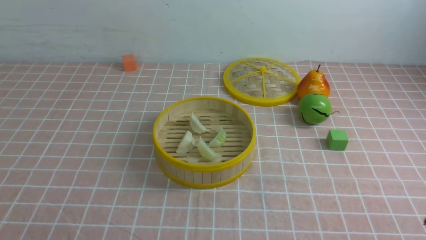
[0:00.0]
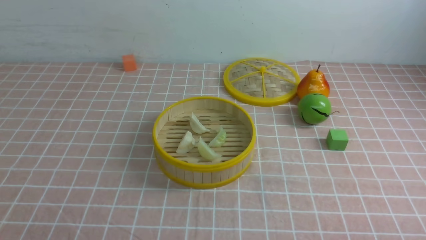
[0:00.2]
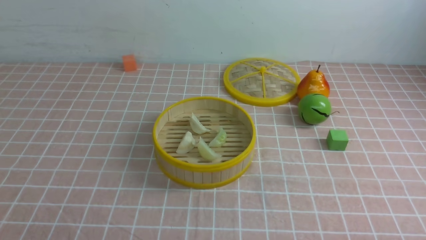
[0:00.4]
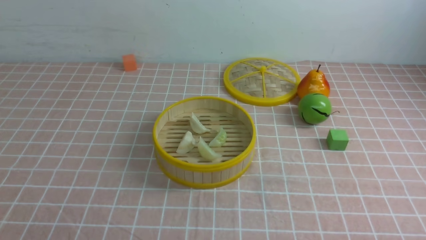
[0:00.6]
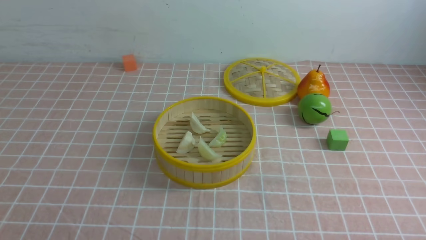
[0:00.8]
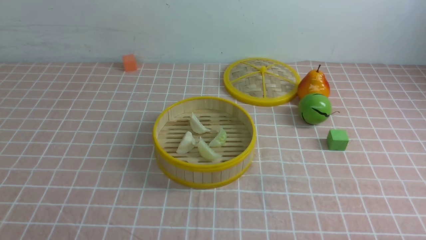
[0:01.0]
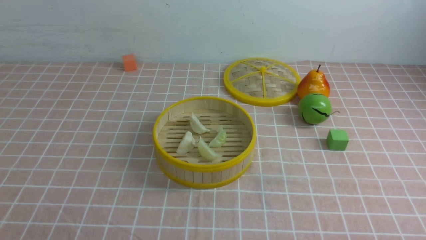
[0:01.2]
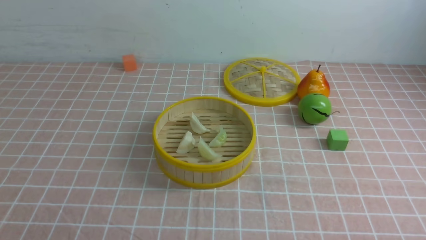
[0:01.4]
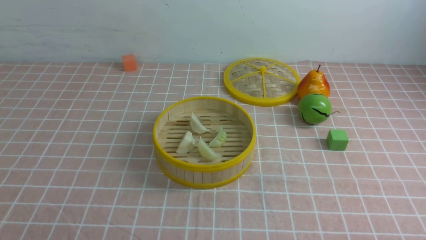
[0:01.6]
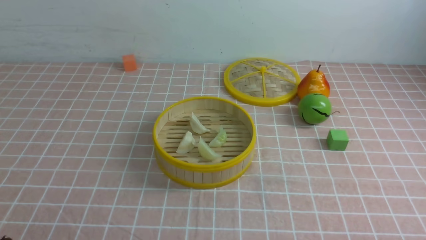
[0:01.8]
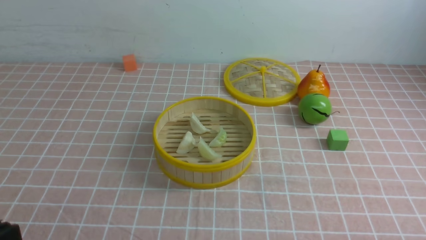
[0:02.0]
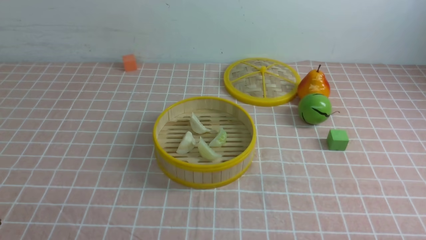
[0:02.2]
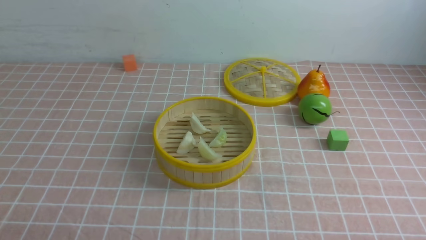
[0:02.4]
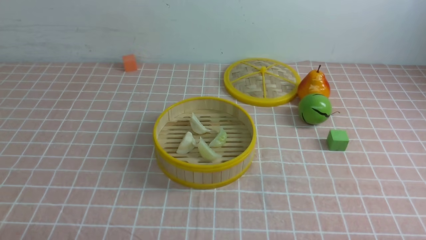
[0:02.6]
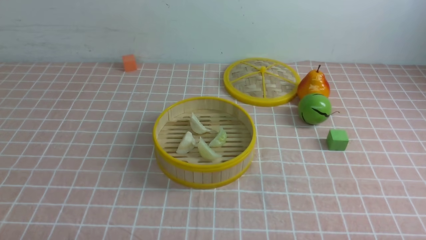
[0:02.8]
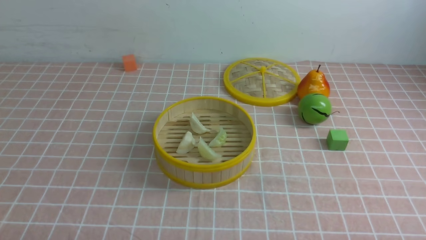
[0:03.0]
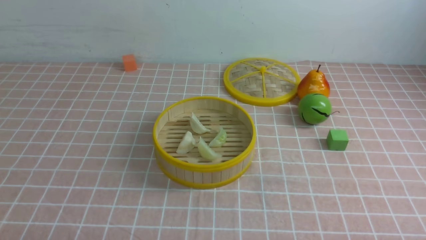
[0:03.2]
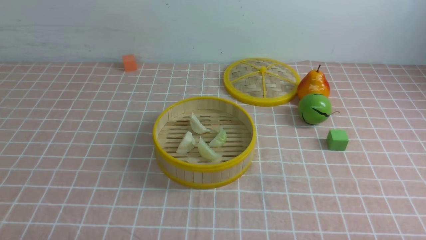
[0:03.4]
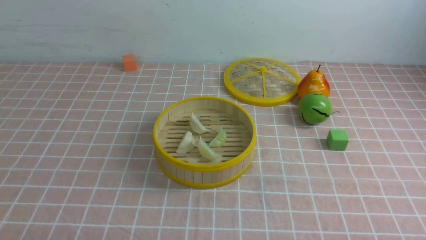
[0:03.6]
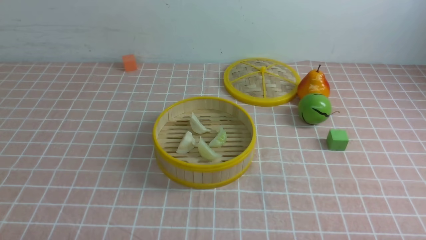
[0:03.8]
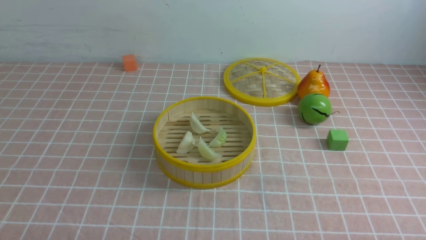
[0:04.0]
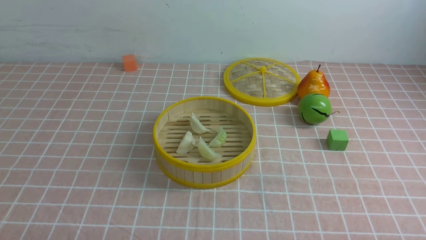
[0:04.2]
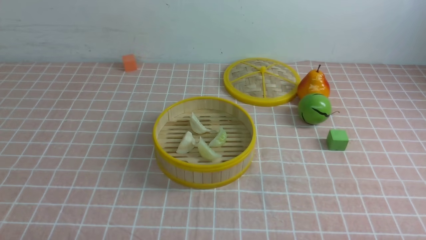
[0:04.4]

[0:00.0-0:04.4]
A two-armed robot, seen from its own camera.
Task of the whole recording: put the dumplings into the steamer on the table with the pink tablecloth.
0:03.0 to 0:04.4: Both grippers stay about where they are.

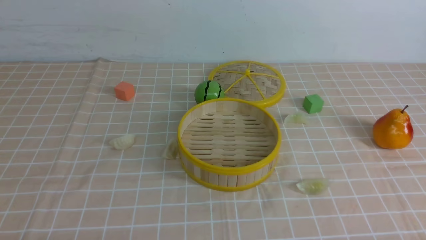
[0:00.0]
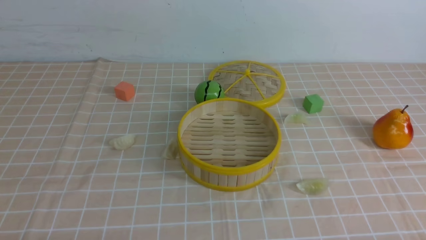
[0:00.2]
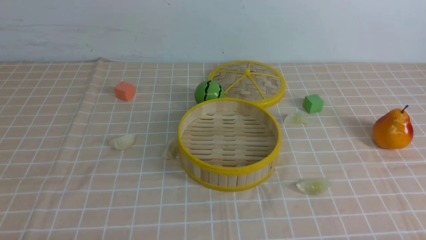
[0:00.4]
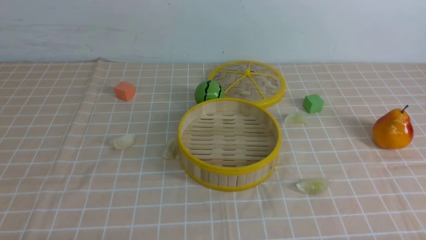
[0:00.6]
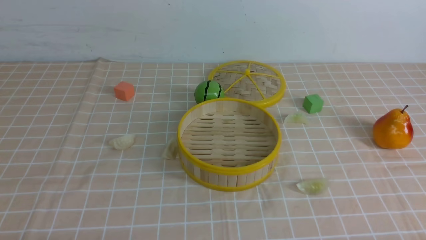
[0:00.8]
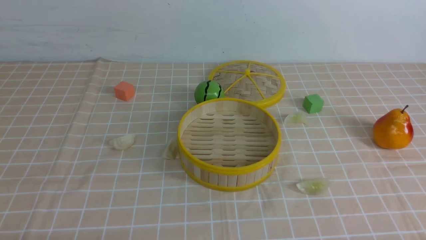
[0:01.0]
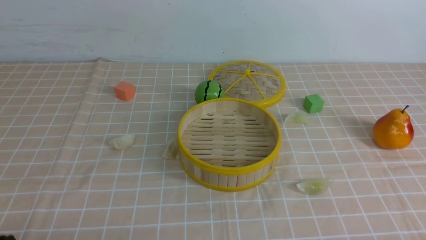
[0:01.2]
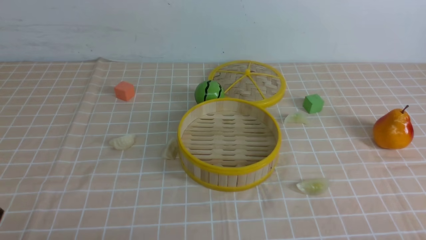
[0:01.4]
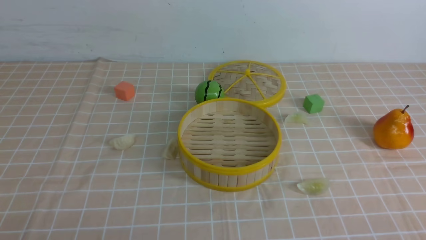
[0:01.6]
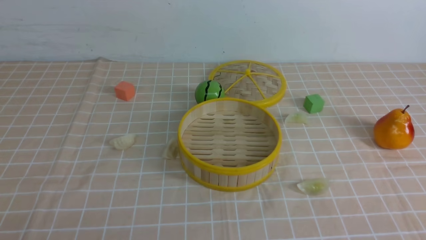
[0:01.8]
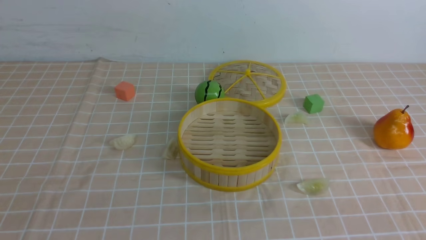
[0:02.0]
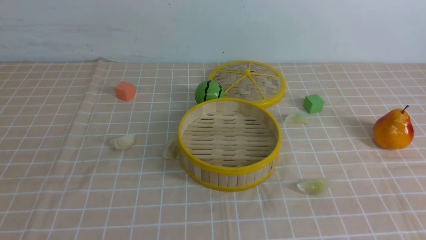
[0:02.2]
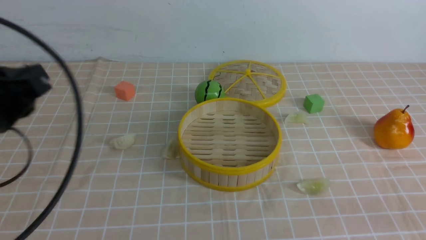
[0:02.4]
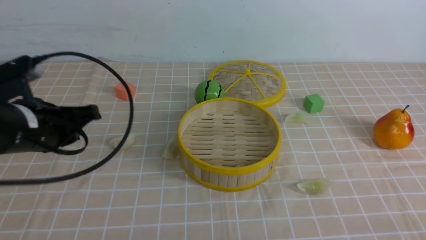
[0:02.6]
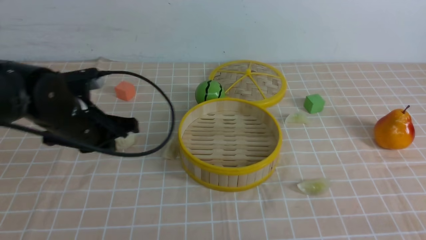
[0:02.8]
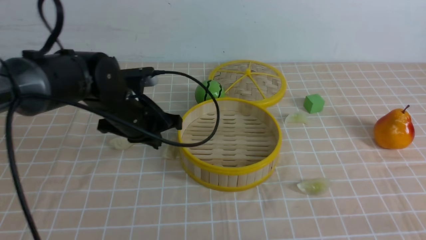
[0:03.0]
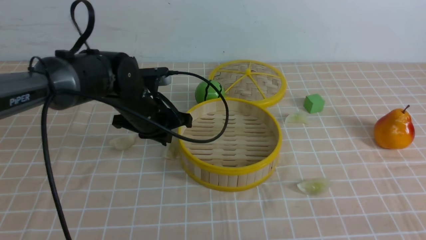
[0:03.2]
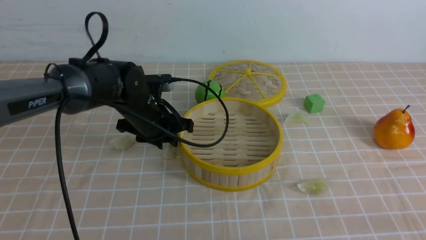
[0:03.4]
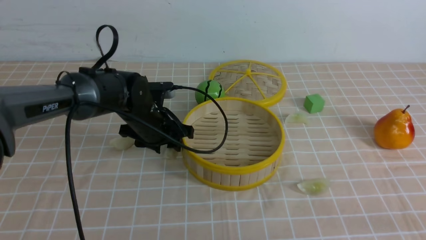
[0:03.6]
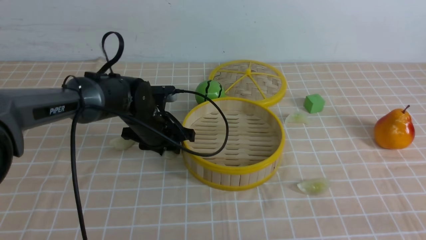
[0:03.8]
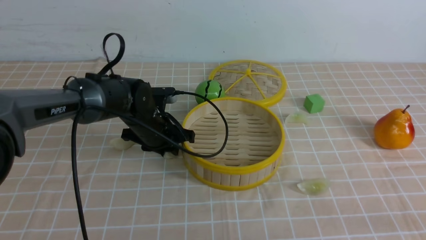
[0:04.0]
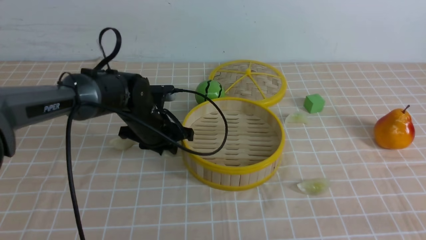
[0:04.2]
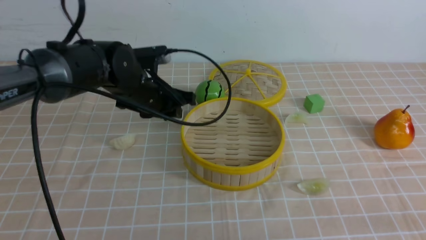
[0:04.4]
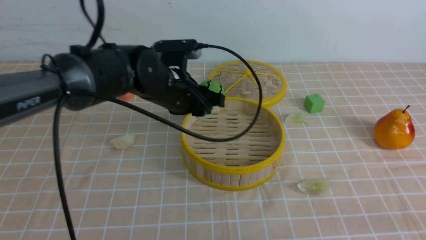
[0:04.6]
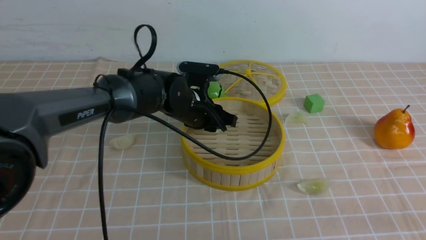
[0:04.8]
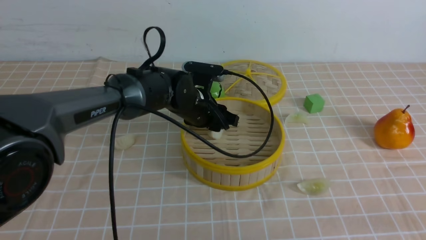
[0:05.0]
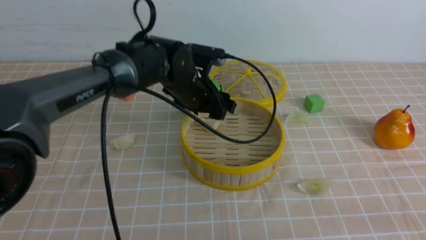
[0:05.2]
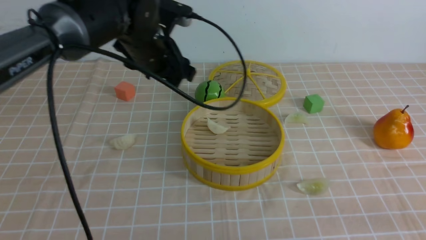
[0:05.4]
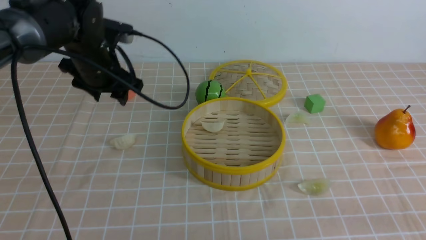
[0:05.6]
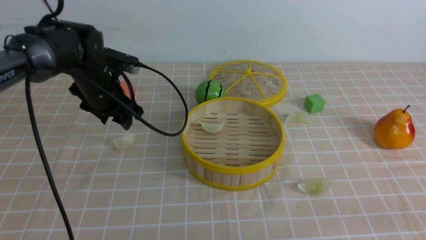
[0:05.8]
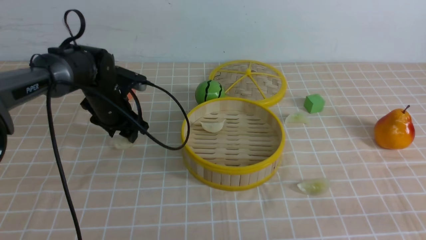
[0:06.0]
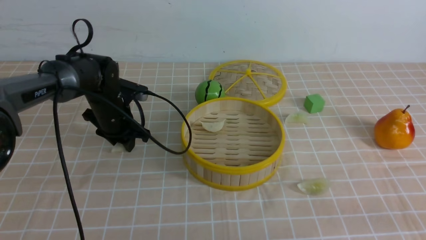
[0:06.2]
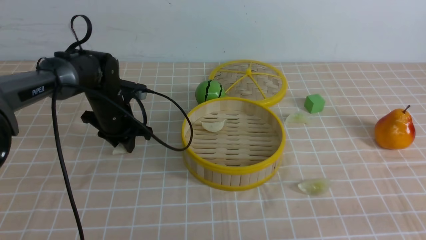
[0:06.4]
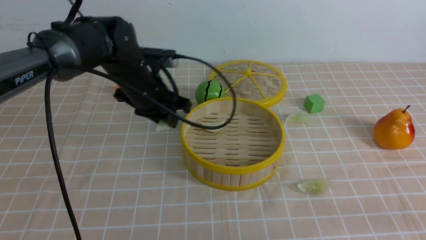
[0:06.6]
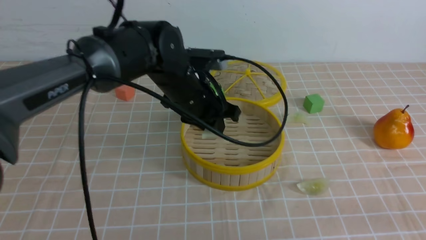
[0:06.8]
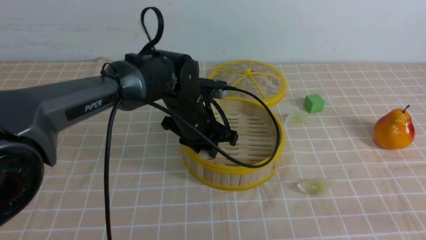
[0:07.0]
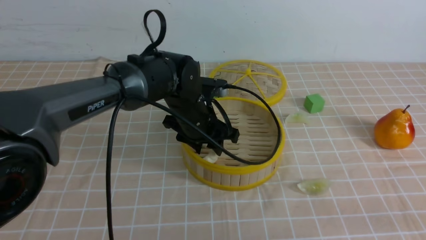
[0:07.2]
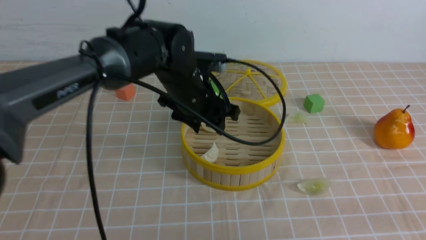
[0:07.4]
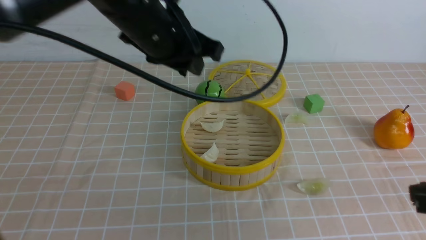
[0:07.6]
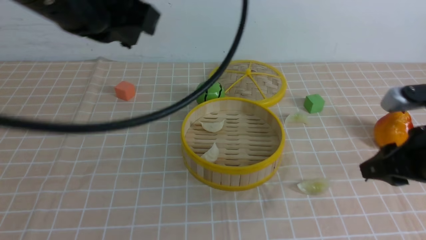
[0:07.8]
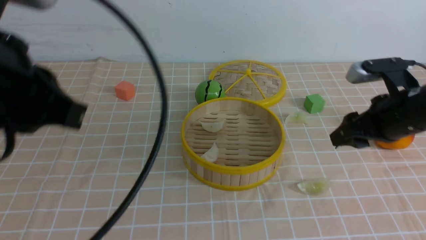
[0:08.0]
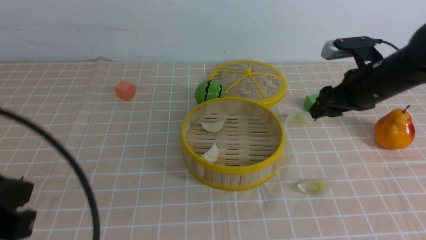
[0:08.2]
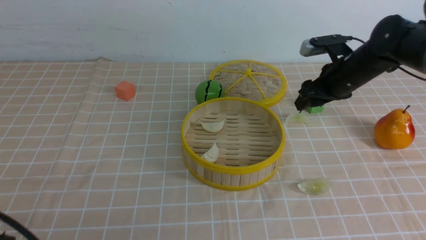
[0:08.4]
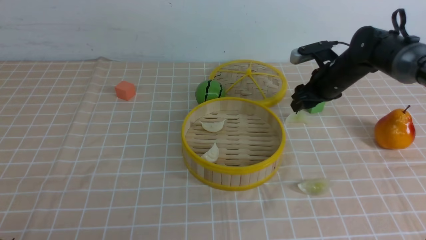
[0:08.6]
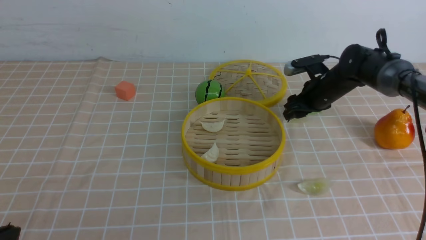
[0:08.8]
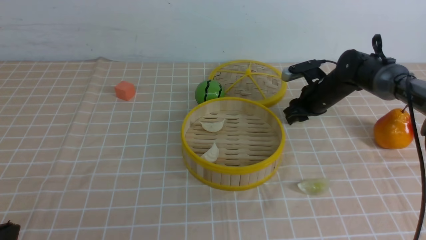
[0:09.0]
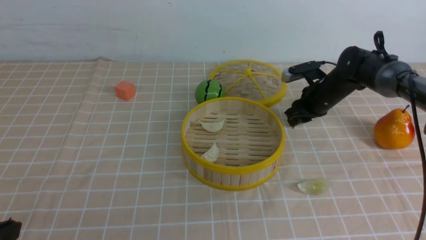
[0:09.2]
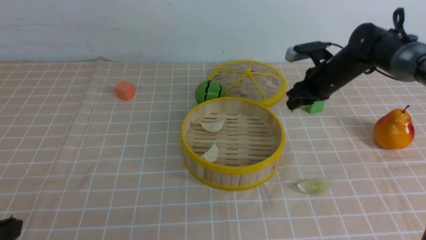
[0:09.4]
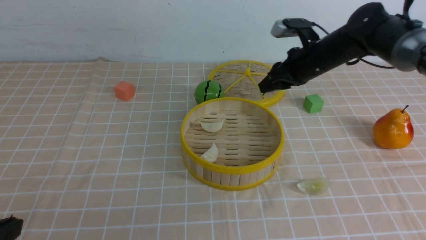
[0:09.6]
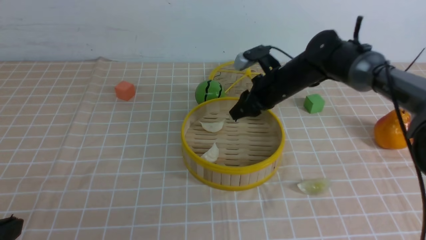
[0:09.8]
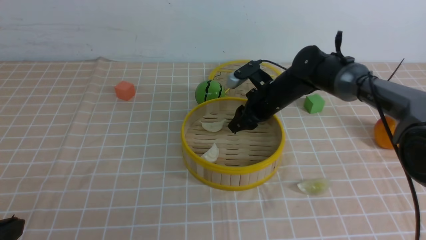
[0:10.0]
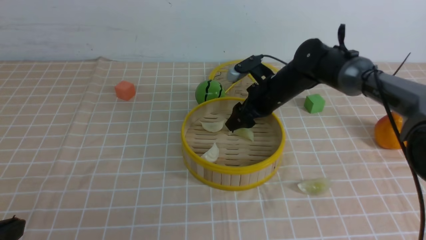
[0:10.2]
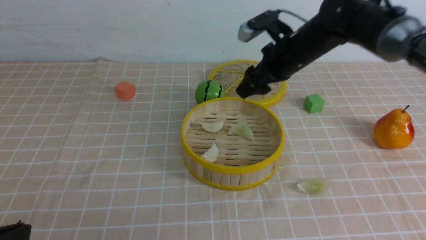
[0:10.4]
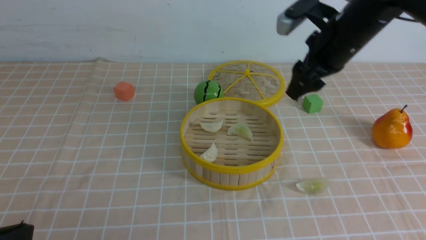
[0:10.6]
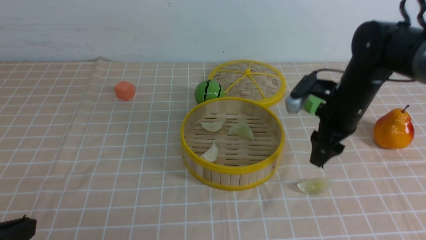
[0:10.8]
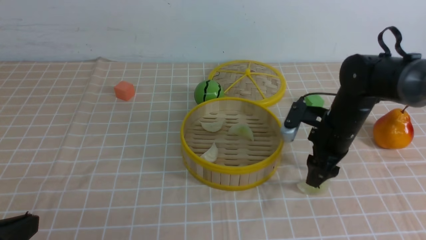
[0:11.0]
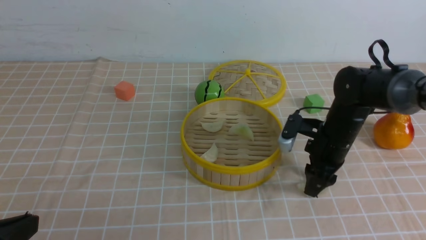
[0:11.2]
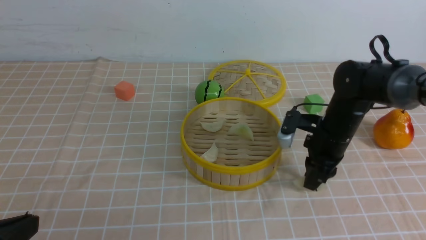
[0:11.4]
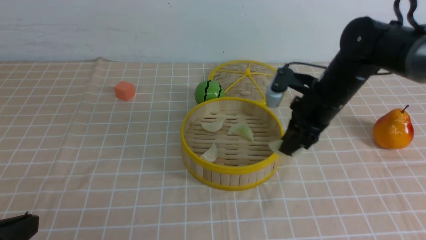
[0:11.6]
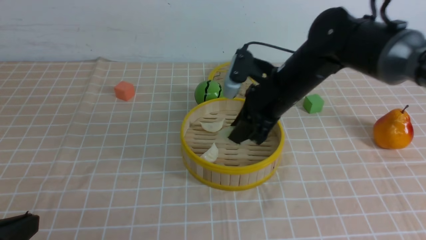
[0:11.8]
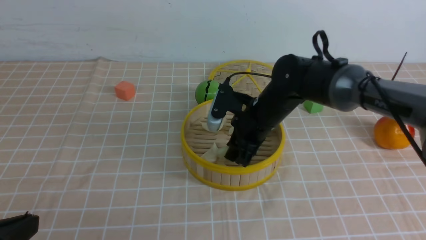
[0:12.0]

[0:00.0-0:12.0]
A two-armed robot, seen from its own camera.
Task of the whole recording: put the dumplings into the steamer on the table with the brown tablecloth.
Step, 0:00.0 to 0:03.8: use the left arm to grab a dumpling.
Step, 0:04.0 to 0:05.2: use the left arm to put the dumpling into the steamer.
Step, 0:05.4 to 0:06.2: use the left arm to grab a dumpling.
Step, 0:06.4 to 0:07.2: use the left arm to put the dumpling into the steamer.
Step, 0:07.6 to 0:09.0: use the right arm to grab a dumpling.
Step, 0:09.2 to 0:10.2: use the right arm to put the dumpling into the steamer.
Step, 0:10.4 to 0:11.2: use the right arm to grab a dumpling.
0:01.6 to 0:03.0: The left gripper moves forward, some 30 cm. Meanwhile the right gripper travels forward by approximately 5 cm, and closes up.
0:03.0 to 0:04.4: The left gripper shifts some 10 cm to the right and forward, and opens.
0:04.4 to 0:06.0: The left gripper goes about 10 cm to the left, and opens.
0:06.0 to 0:07.6: The left gripper shifts approximately 25 cm upward, to the right and backward.
0:07.6 to 0:09.0: The left gripper moves backward and to the left, approximately 30 cm, and closes up. The right gripper heads forward, covering approximately 35 cm, and opens.
0:09.0 to 0:10.4: The right gripper shifts some 15 cm to the left, upward and backward.
0:10.4 to 0:12.0: The right gripper is displaced backward by approximately 5 cm, travels downward and back again, approximately 10 cm each way, and closes its fingers.
